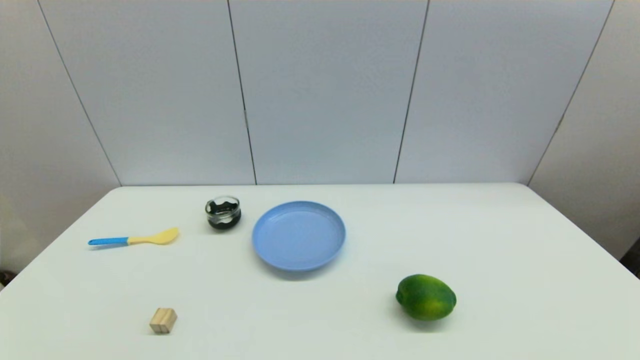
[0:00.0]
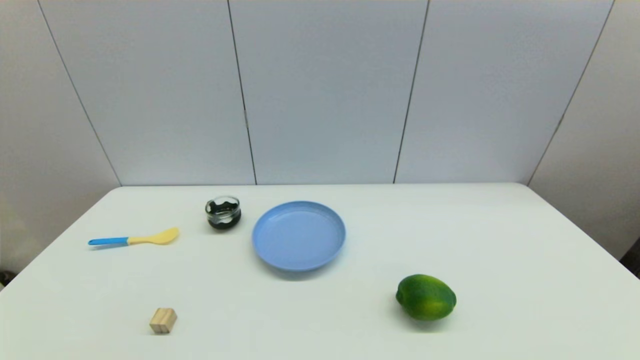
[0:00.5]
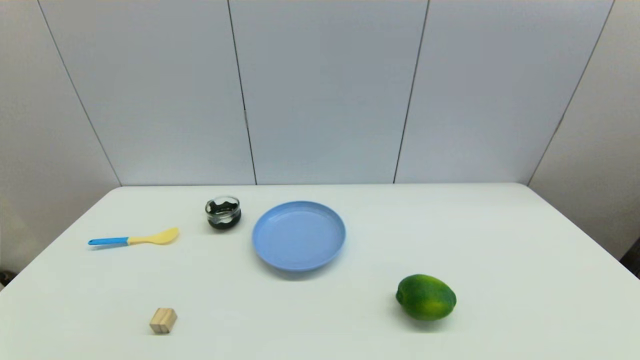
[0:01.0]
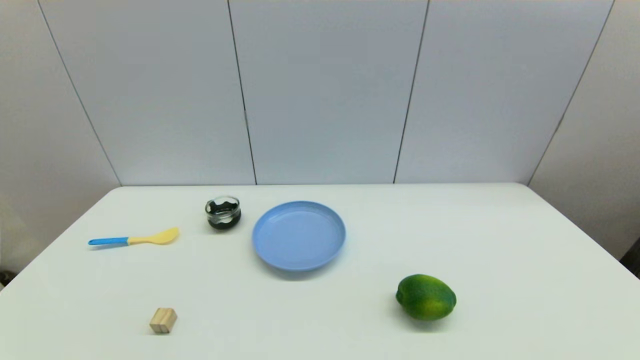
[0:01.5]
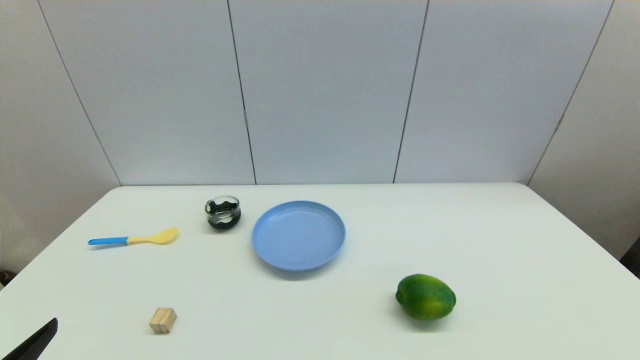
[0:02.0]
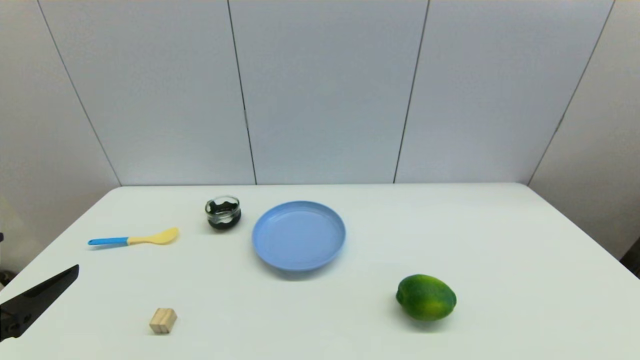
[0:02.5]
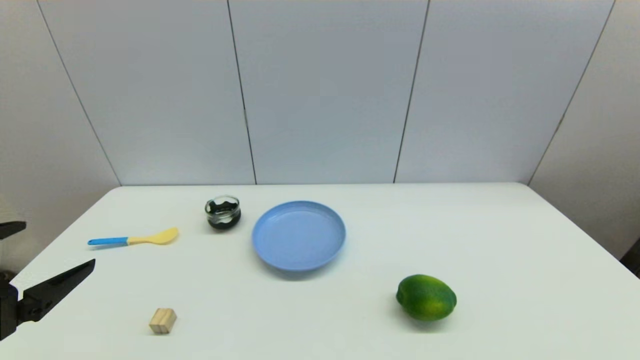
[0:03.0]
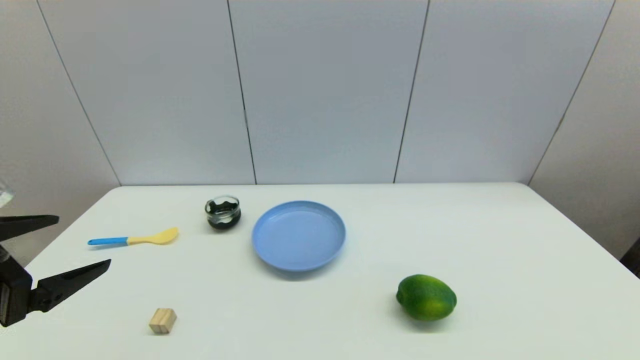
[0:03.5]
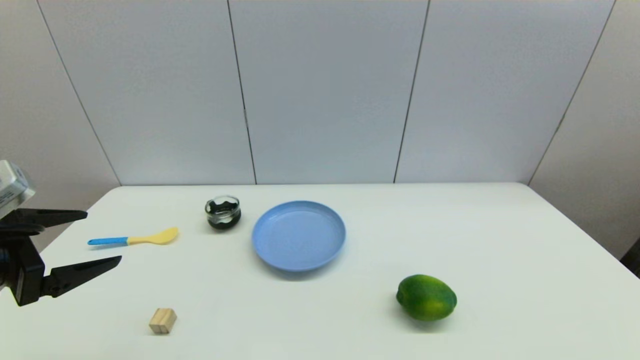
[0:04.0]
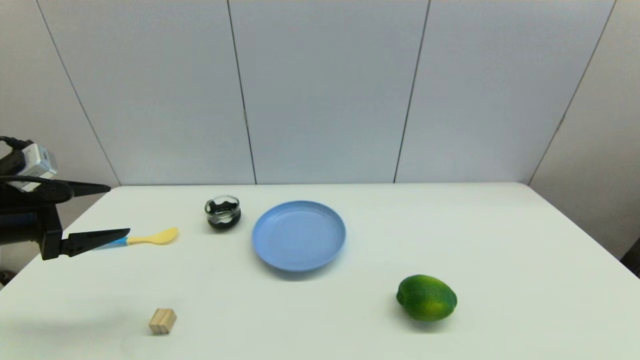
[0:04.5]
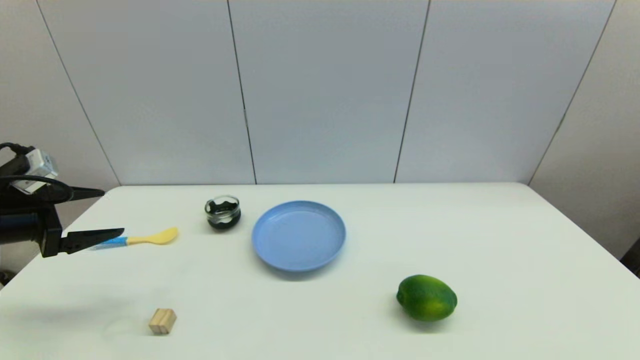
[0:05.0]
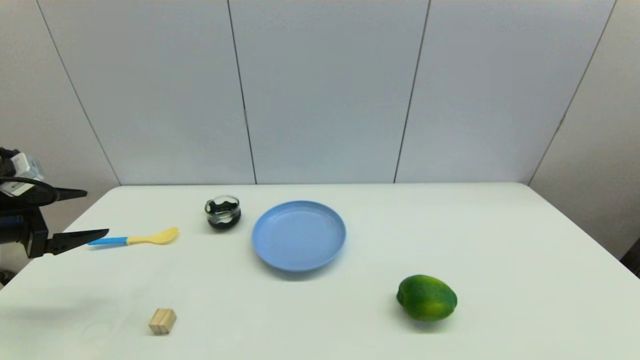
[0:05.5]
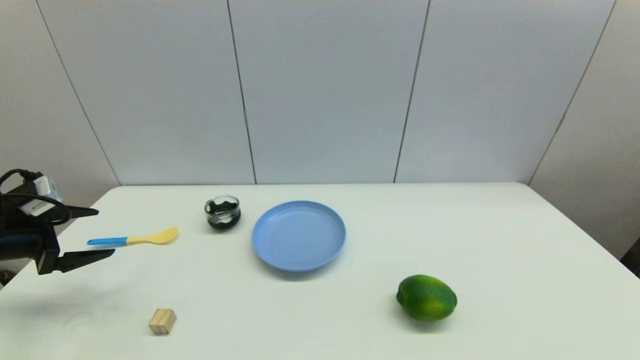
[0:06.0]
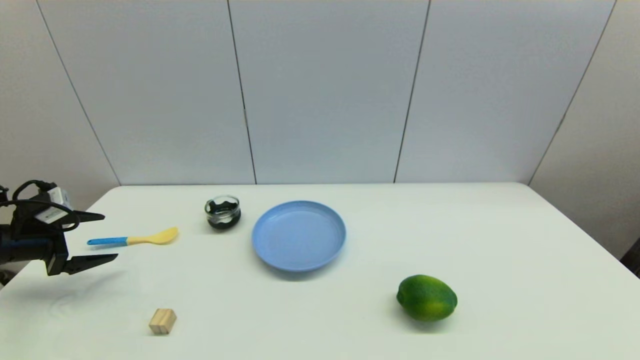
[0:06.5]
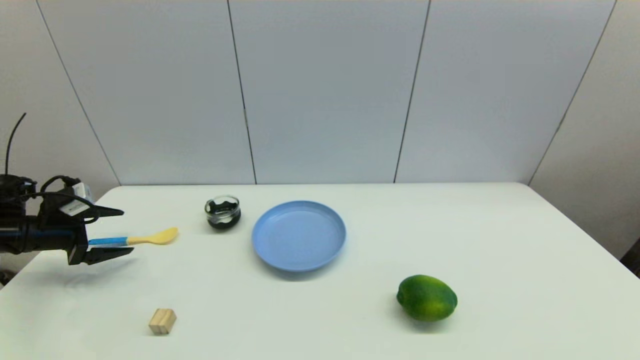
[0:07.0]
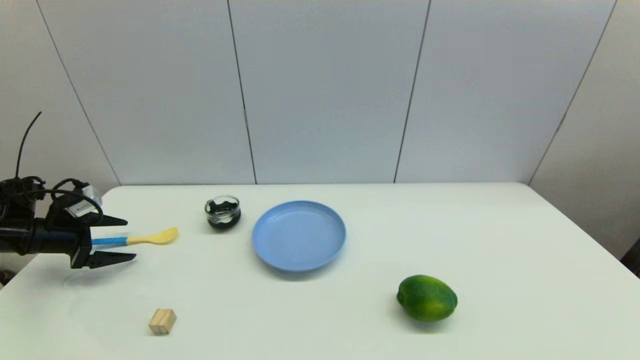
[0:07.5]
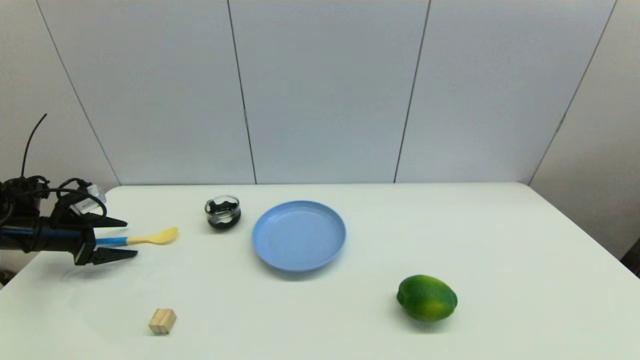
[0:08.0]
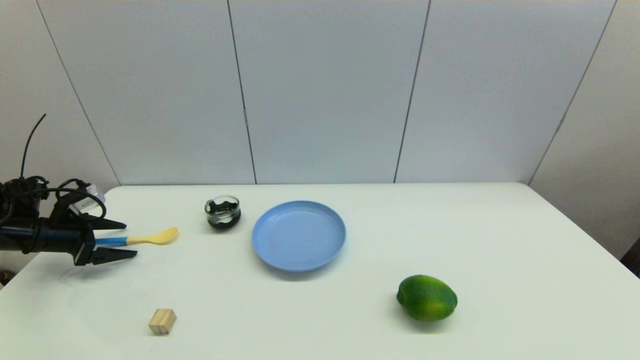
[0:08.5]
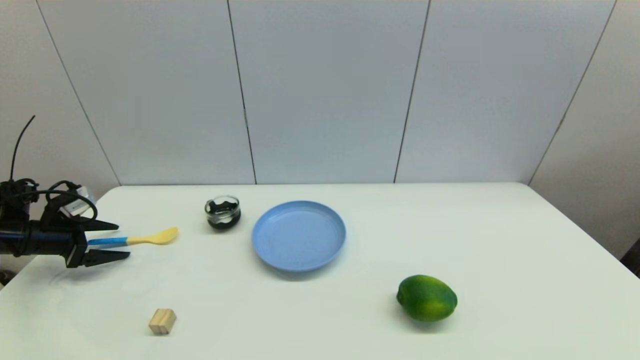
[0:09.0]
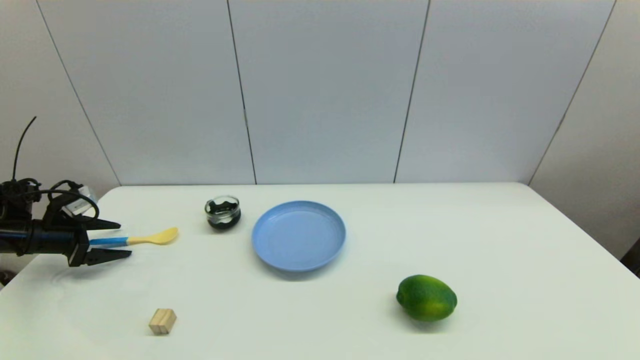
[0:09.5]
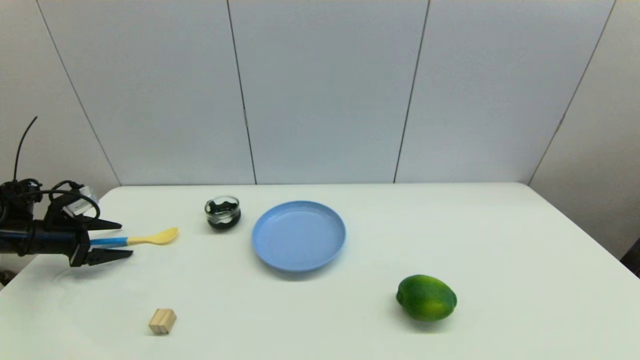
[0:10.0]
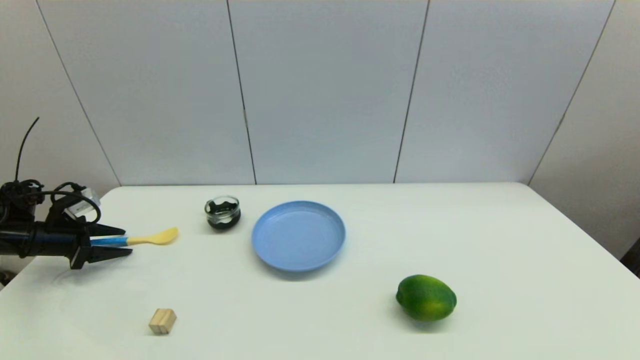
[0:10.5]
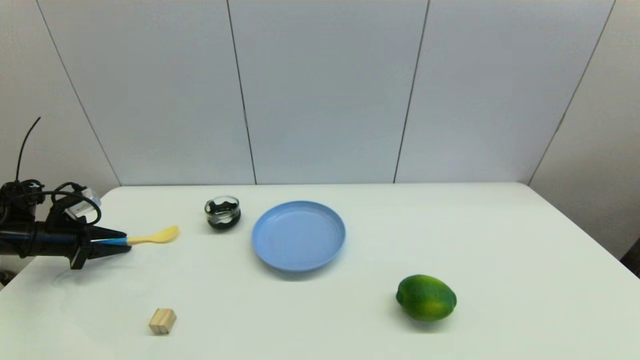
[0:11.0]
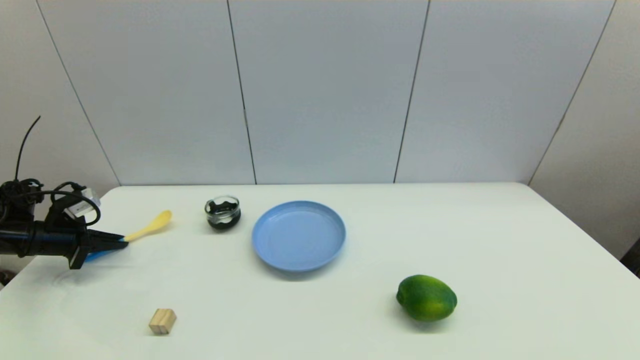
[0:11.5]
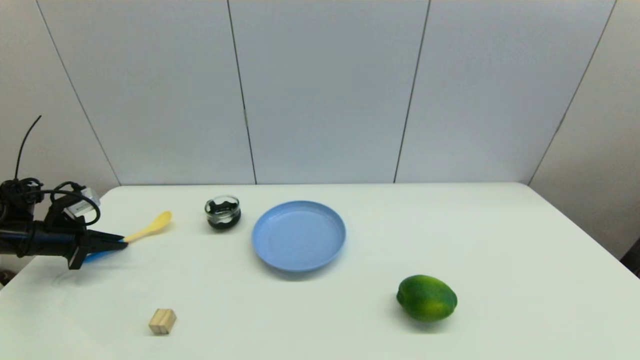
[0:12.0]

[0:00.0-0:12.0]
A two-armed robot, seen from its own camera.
Step, 0:02.0 to 0:11.0: Grasp the spoon with left gripper.
0:02.0 to 0:04.0: The left gripper travels forward by some 15 cm.
0:04.0 to 0:06.0: The left gripper shifts approximately 15 cm to the left, forward and downward.
0:06.0 to 0:08.0: The left gripper travels forward and downward by approximately 10 cm.
0:08.0 to 0:10.0: The grippers move only a little.
0:10.0 to 0:12.0: The left gripper closes.

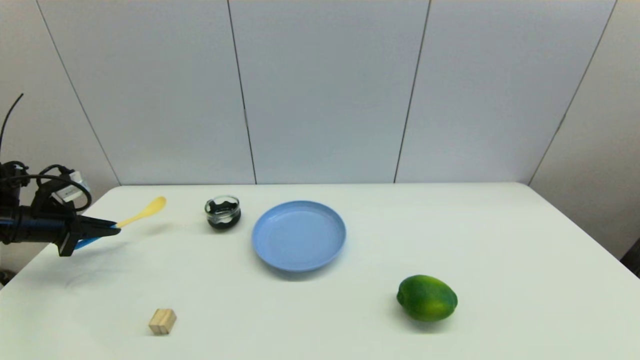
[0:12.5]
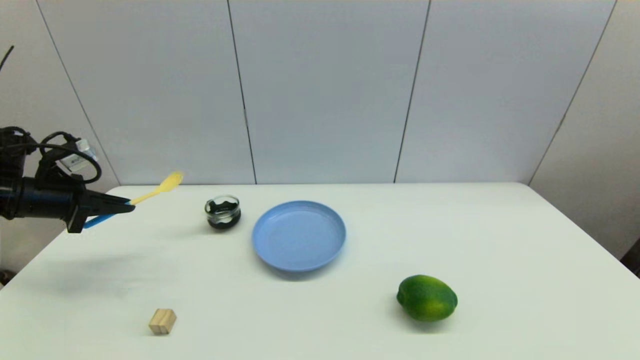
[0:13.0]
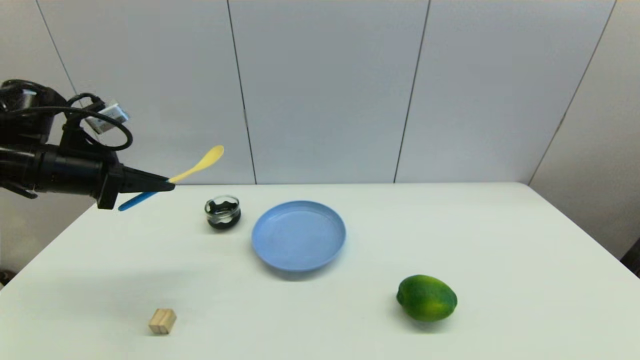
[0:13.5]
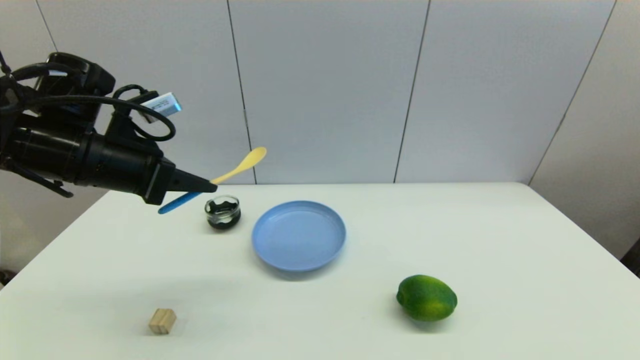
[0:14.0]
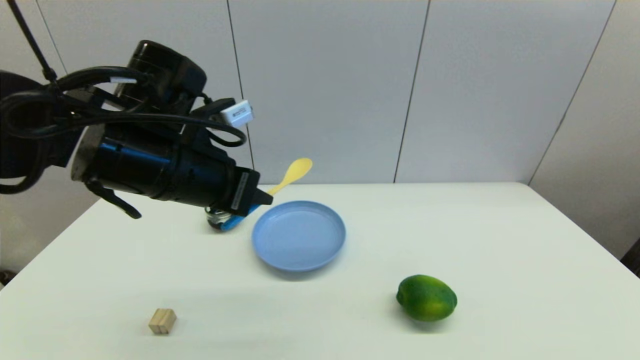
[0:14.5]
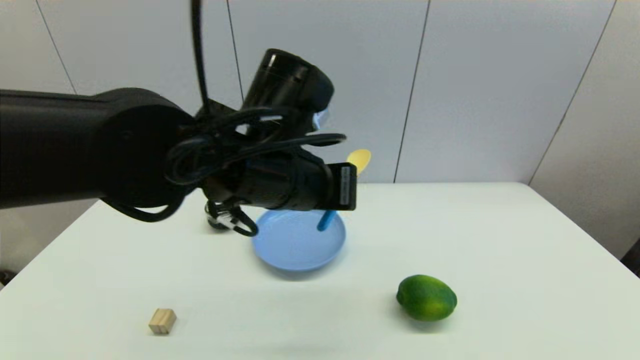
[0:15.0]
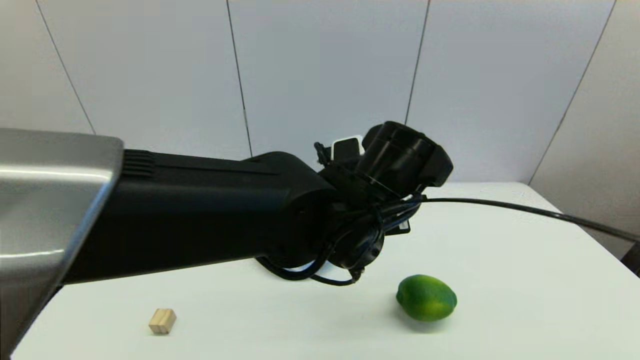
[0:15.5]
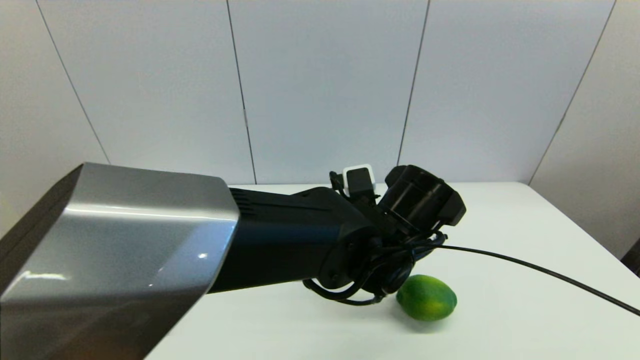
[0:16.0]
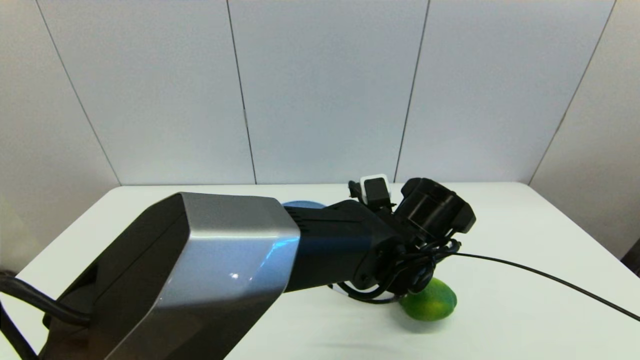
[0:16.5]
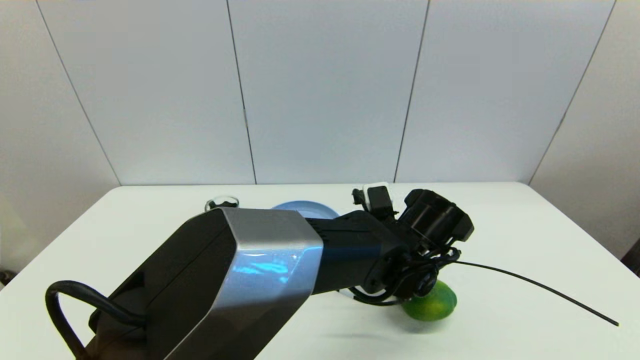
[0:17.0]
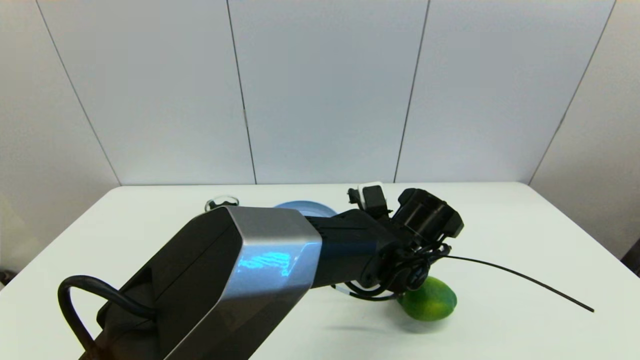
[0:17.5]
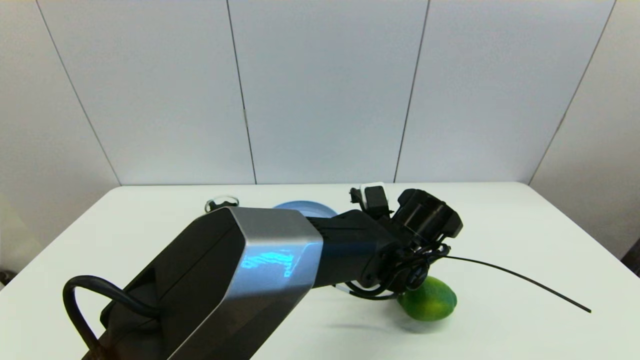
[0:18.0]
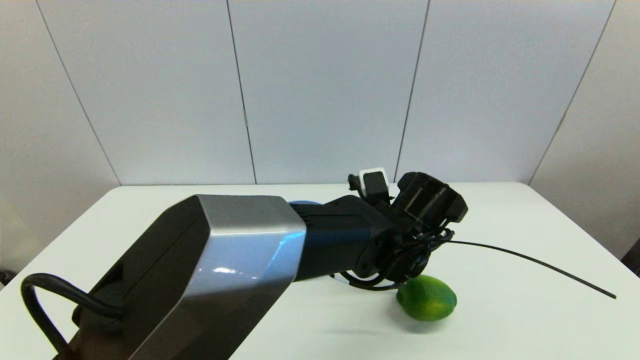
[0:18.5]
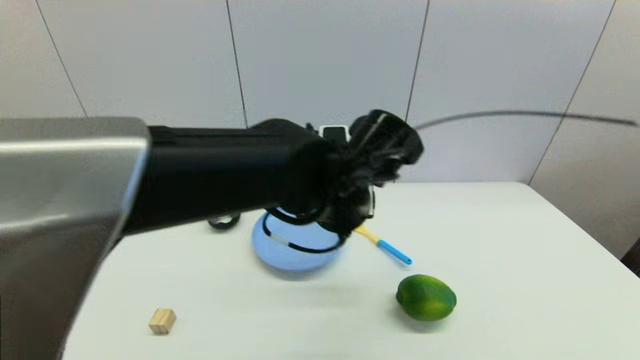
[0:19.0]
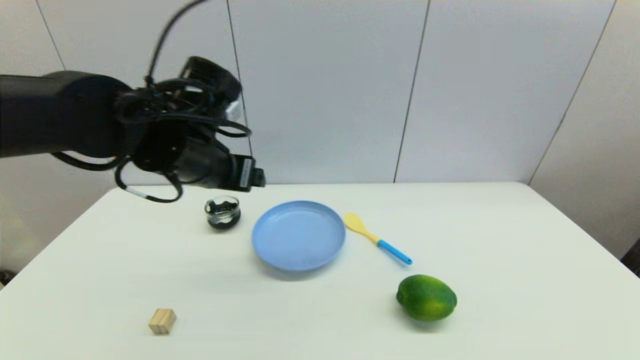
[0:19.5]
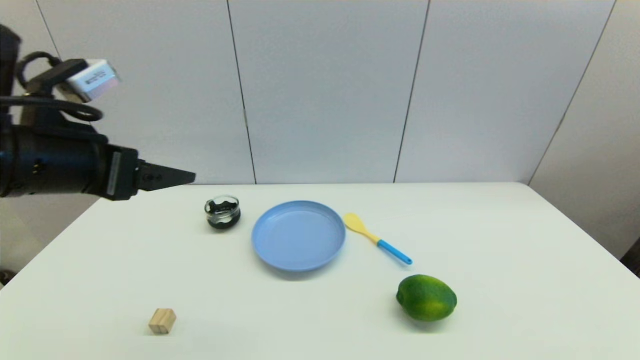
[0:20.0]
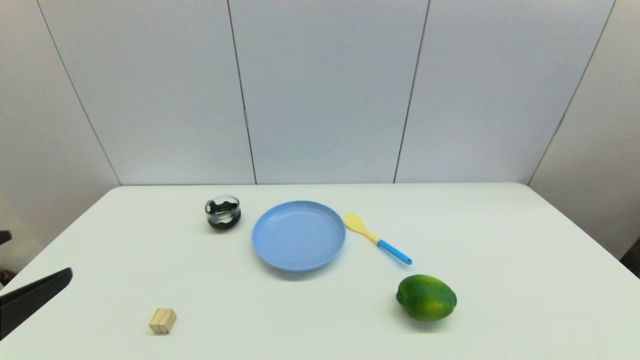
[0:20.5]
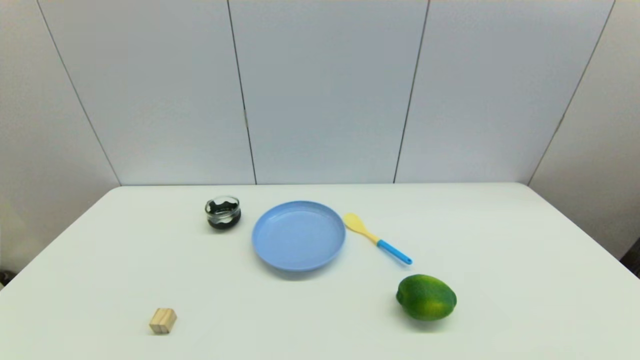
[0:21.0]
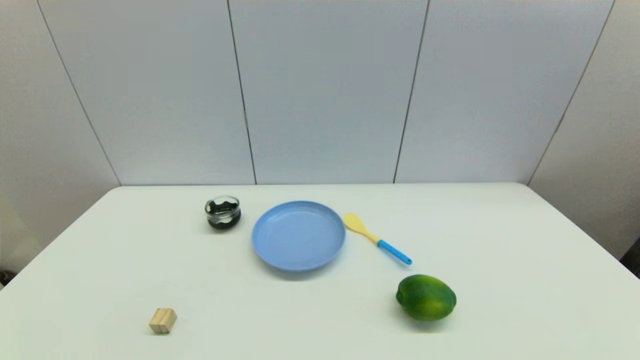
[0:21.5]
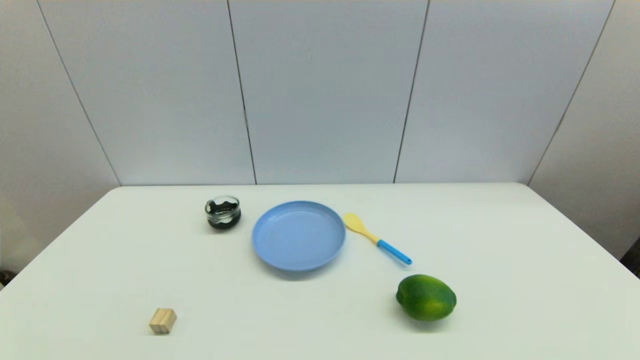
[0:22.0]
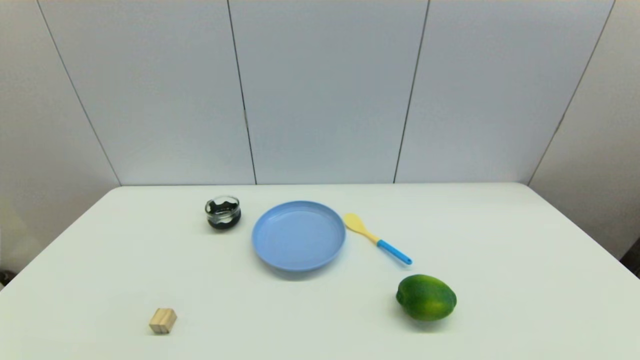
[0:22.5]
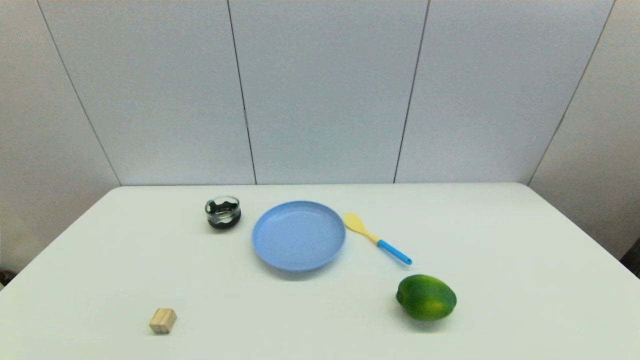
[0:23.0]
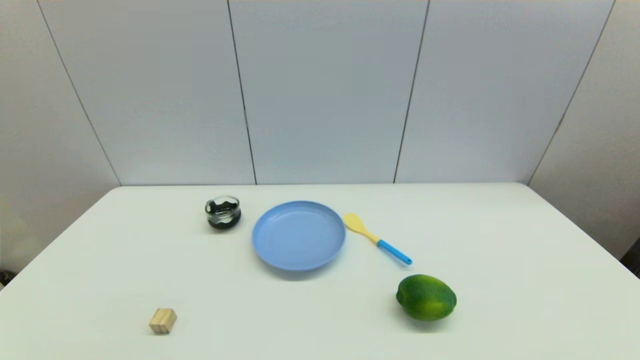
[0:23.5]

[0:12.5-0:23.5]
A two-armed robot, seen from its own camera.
Step, 0:12.5 to 0:17.5: Place the spoon on the table with left gripper.
0:12.5 to 0:14.5: The left gripper travels to the right and upward by about 35 cm.
0:14.5 to 0:16.0: The left gripper heads to the right and downward, covering about 25 cm.
0:16.0 to 0:18.0: The left gripper moves downward, approximately 5 cm, and opens.
0:18.0 to 0:20.0: The left gripper travels to the left and upward by some 40 cm, and opens up.
0:20.0 to 0:21.5: The left gripper moves backward and downward, roughly 30 cm.
